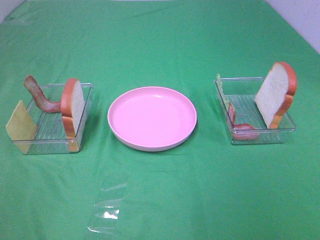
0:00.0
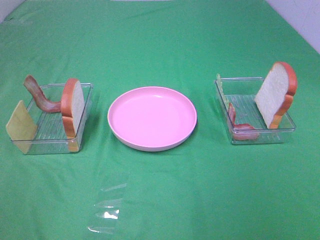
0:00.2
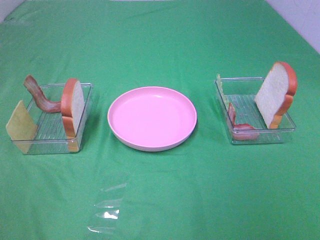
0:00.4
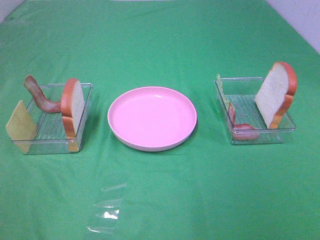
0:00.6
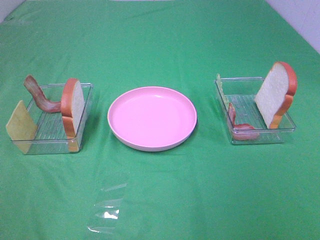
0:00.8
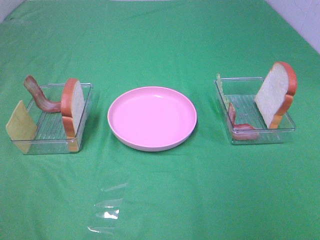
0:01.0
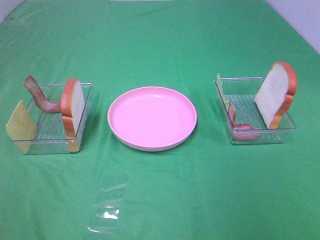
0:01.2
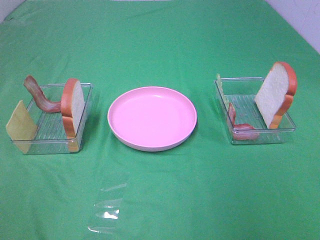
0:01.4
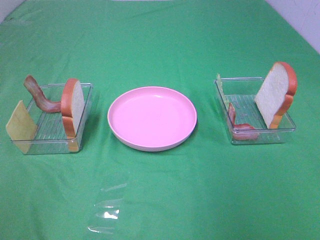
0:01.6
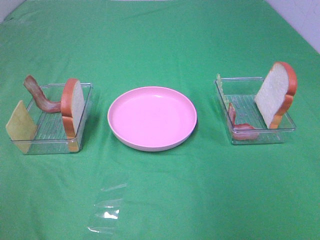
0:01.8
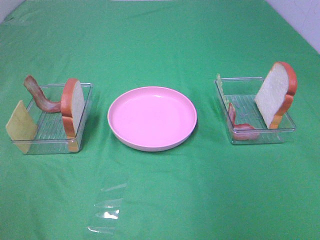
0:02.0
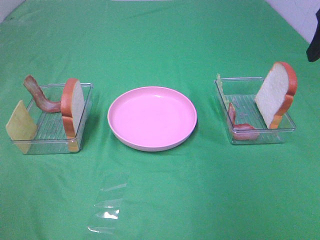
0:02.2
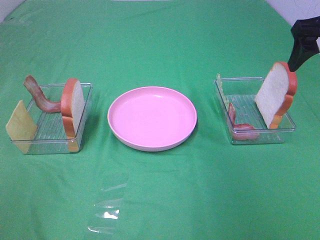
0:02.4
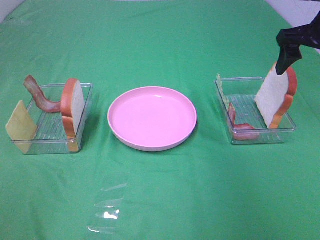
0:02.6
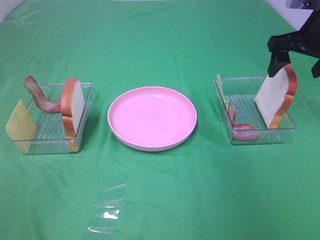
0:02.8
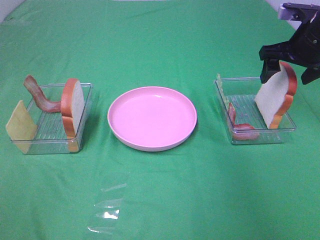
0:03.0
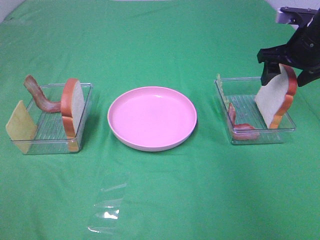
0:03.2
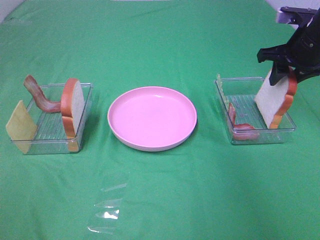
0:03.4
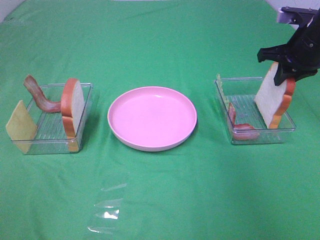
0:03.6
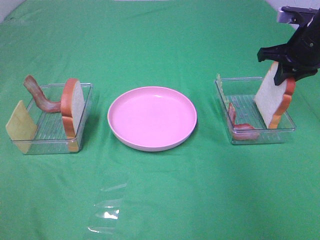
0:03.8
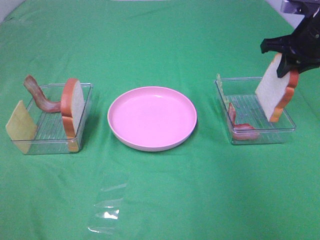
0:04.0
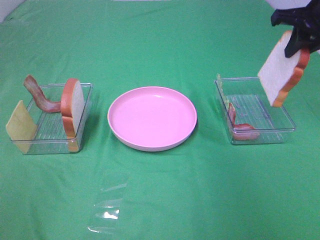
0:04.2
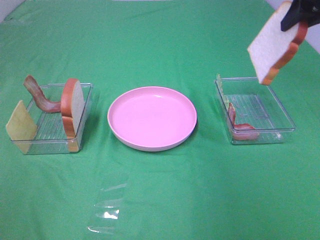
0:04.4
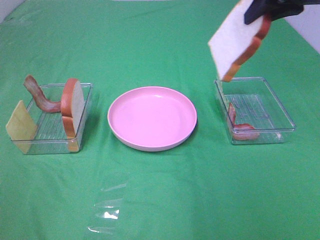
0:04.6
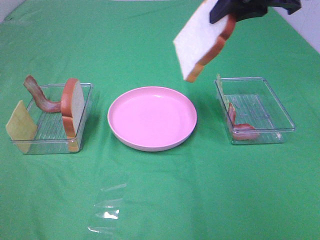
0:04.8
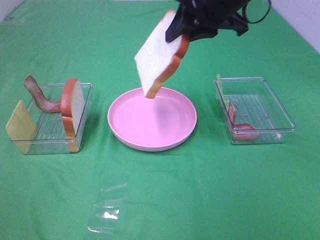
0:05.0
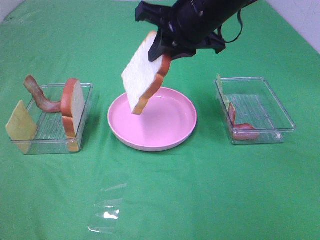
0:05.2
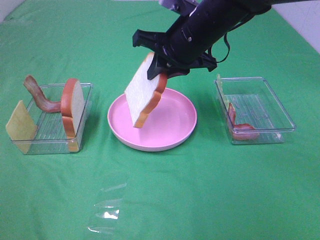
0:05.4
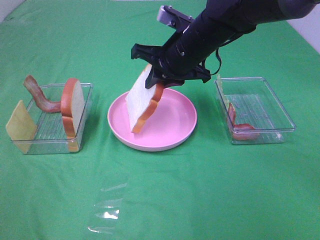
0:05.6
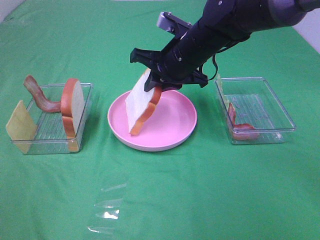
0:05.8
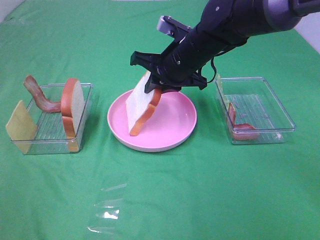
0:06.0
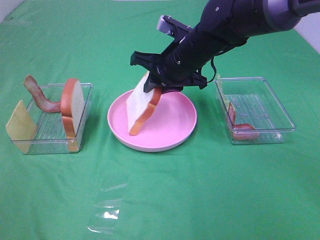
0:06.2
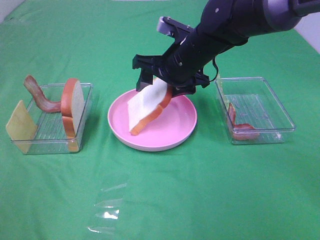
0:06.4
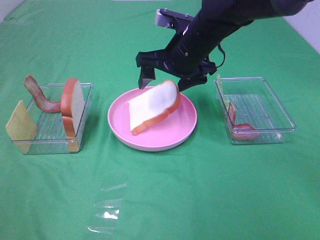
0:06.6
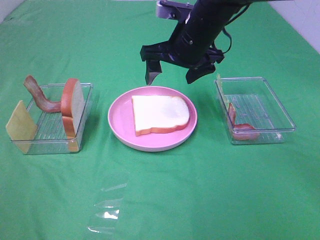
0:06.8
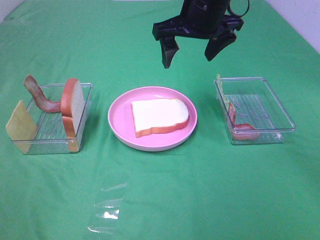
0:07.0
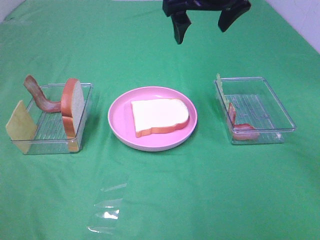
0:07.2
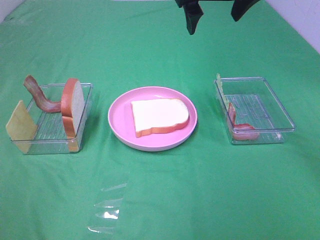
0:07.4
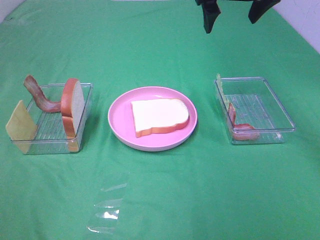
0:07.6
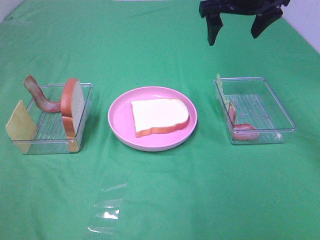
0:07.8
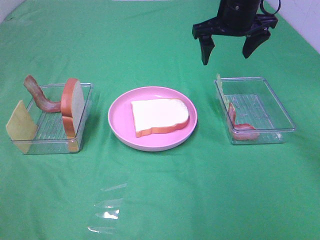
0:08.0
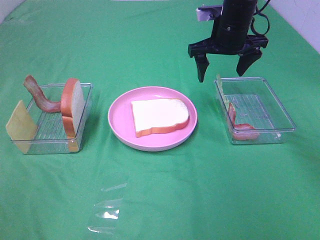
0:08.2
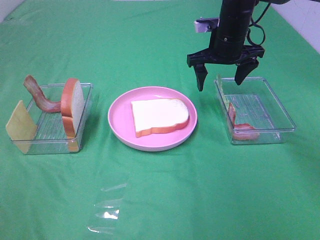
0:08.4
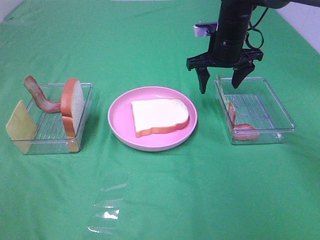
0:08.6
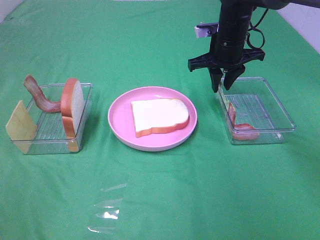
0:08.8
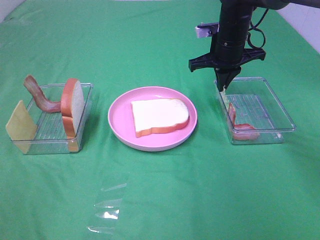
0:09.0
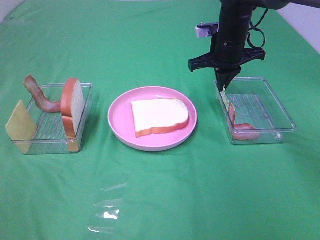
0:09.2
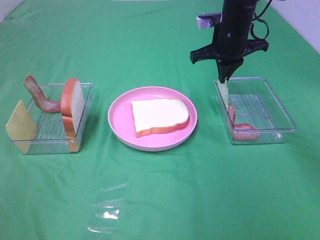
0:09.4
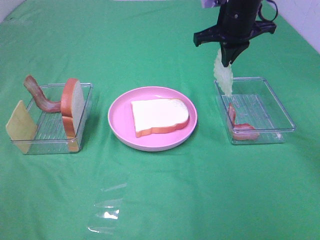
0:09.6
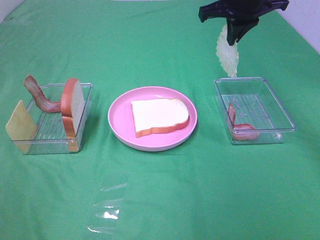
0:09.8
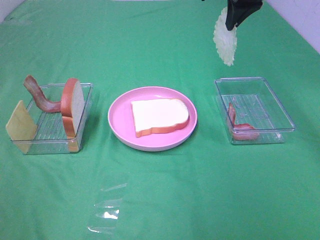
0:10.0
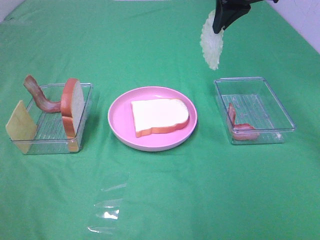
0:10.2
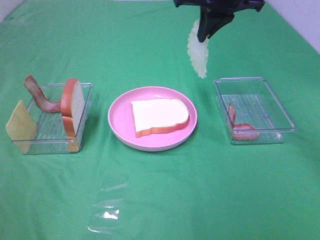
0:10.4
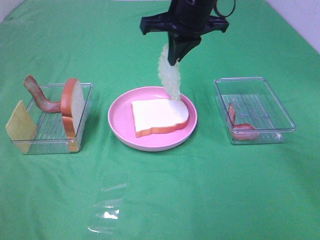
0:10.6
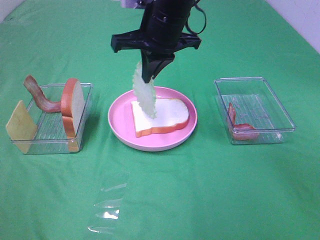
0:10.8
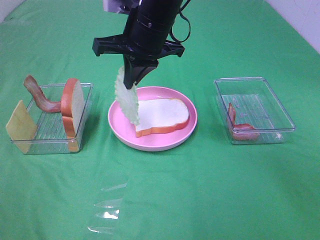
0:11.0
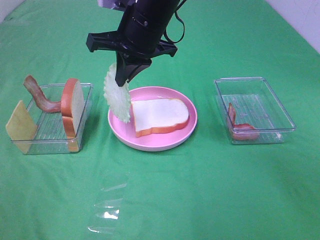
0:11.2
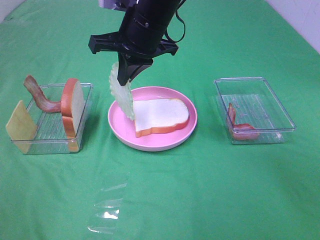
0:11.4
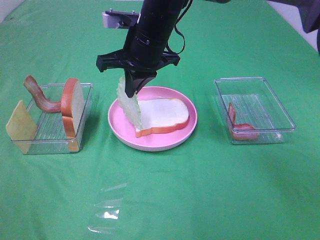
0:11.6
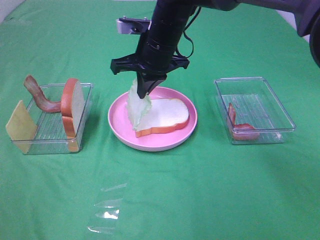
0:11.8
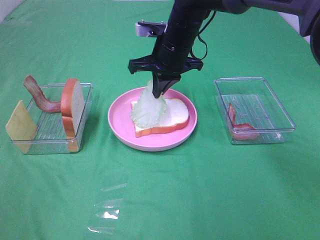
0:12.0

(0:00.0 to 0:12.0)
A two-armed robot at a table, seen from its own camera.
Task of the whole recording: Make sandwiches.
Step, 0:00.0 - 0:03.6: Right hand:grab the bread slice.
Step, 0:03.8 - 0:06.6: Right hand:place the bread slice on the plate.
Step, 0:06.8 - 0:09.0: Right hand:grab the lettuce slice.
0:01.6 - 0:03.0: The right gripper is displaced forward and downward by some 30 cm.
0:03.0 - 0:04.4: The right gripper heads upward, covering roughly 10 cm, and closes its fingers.
0:04.4 - 0:06.0: The right gripper moves to the left and downward, approximately 25 cm.
0:06.0 - 0:07.6: The right gripper travels upward and to the right by roughly 15 cm, and opens.
0:07.6 - 0:09.0: The right gripper travels downward by roughly 15 cm, and closes its fingers.
0:09.0 - 0:10.4: The right gripper travels upward by some 15 cm.
0:10.4 - 0:12.0: The right gripper is displaced downward and to the left by roughly 15 cm.

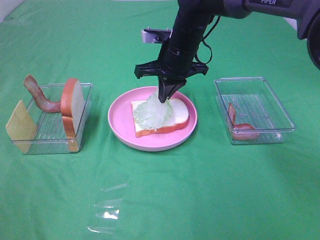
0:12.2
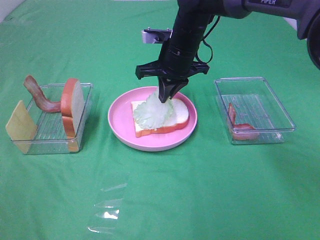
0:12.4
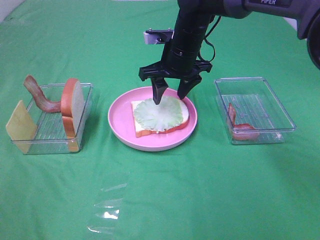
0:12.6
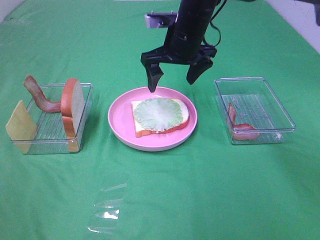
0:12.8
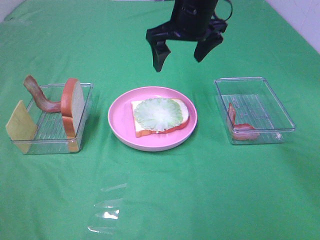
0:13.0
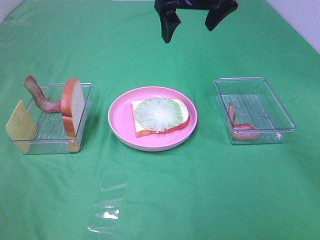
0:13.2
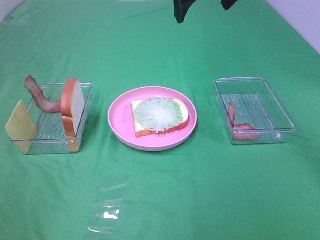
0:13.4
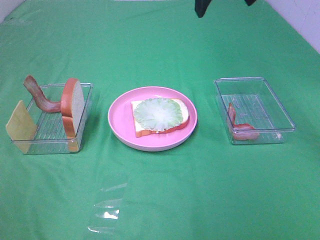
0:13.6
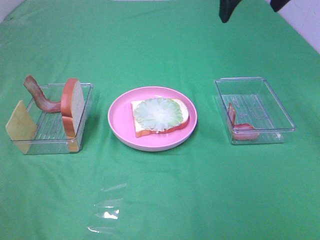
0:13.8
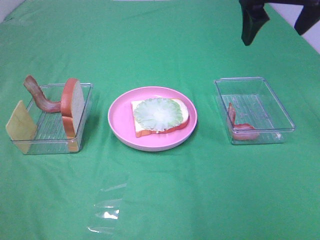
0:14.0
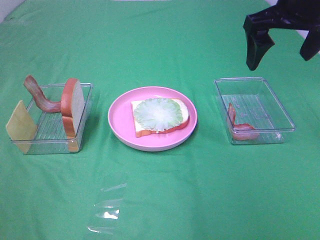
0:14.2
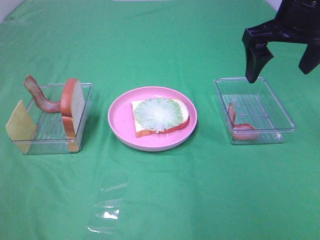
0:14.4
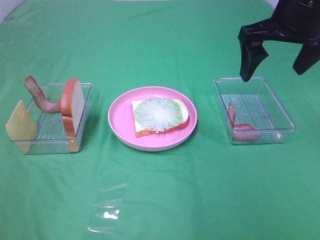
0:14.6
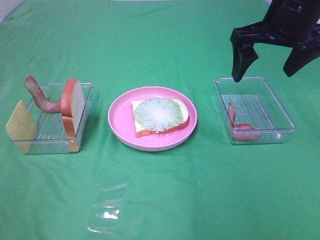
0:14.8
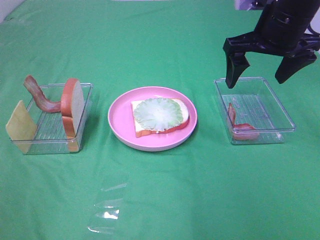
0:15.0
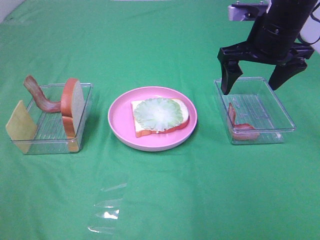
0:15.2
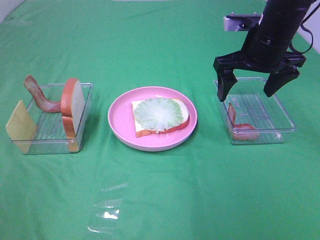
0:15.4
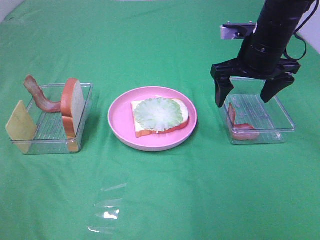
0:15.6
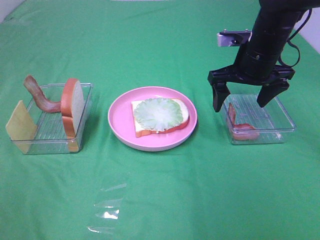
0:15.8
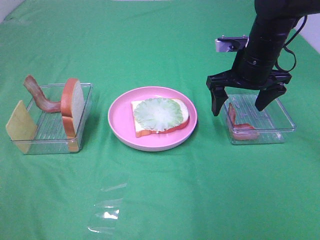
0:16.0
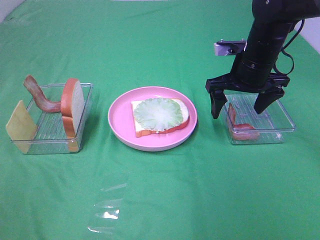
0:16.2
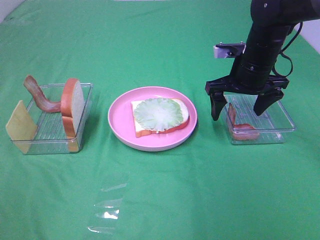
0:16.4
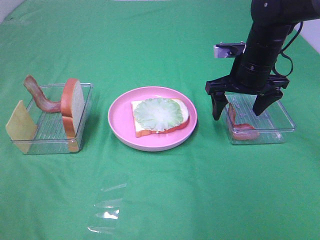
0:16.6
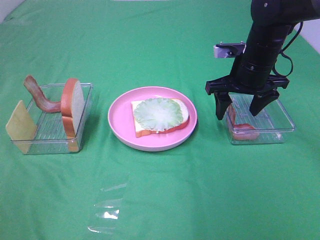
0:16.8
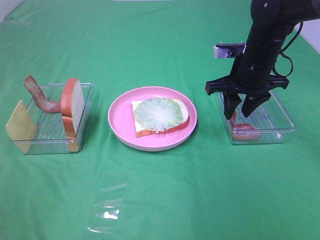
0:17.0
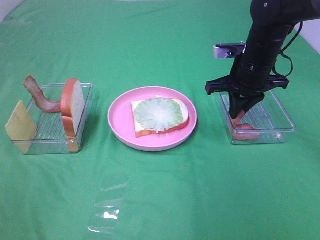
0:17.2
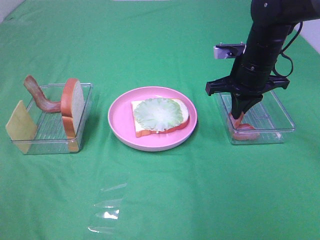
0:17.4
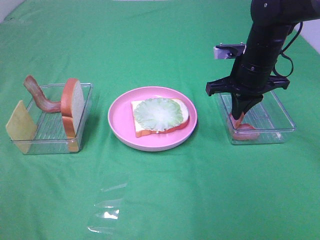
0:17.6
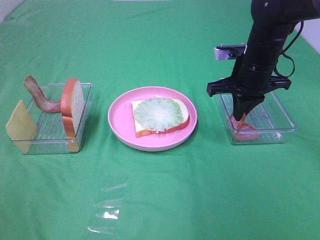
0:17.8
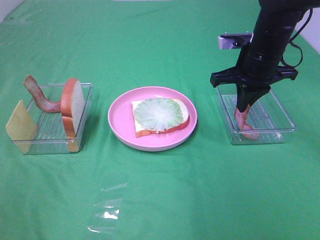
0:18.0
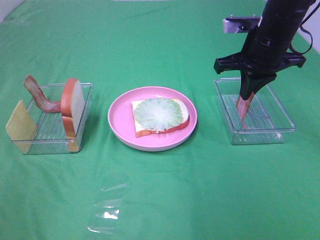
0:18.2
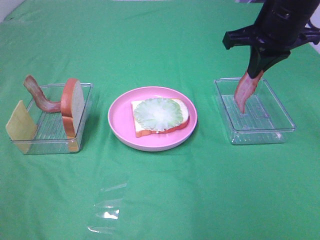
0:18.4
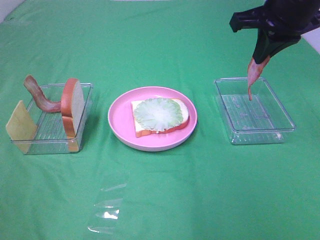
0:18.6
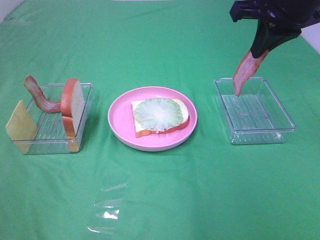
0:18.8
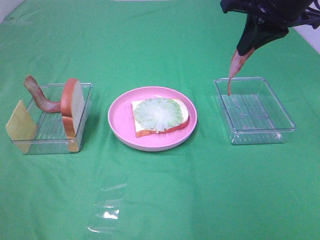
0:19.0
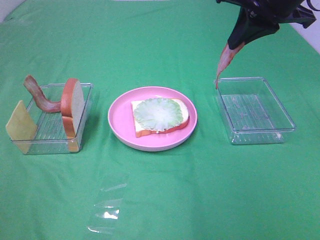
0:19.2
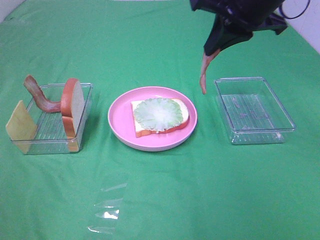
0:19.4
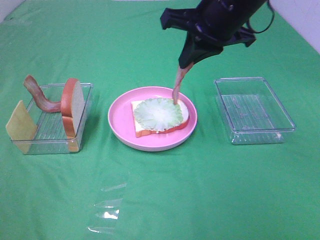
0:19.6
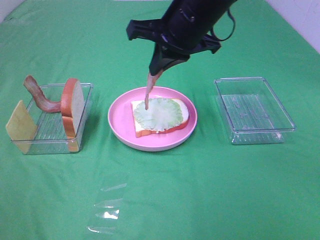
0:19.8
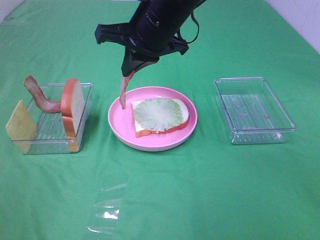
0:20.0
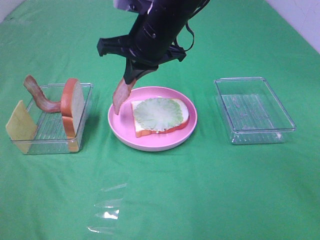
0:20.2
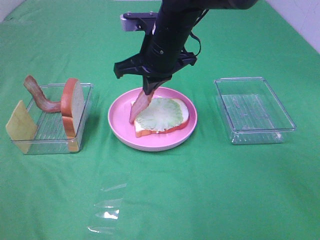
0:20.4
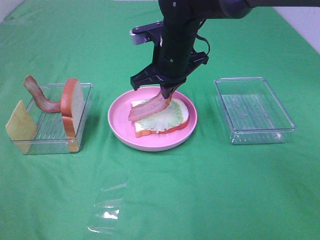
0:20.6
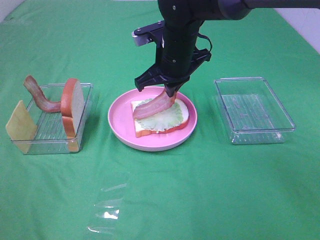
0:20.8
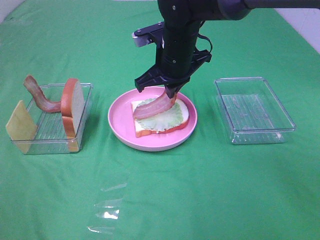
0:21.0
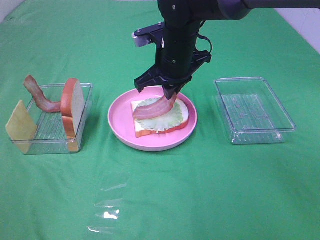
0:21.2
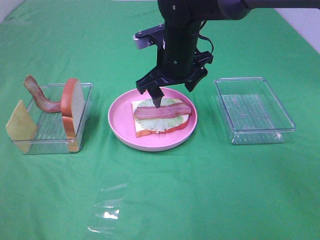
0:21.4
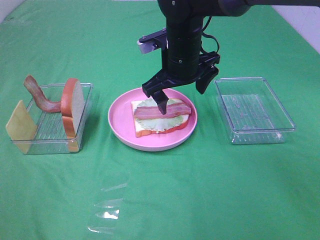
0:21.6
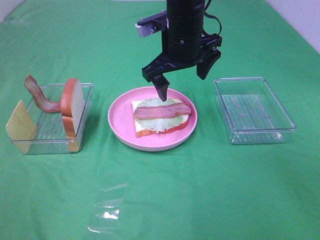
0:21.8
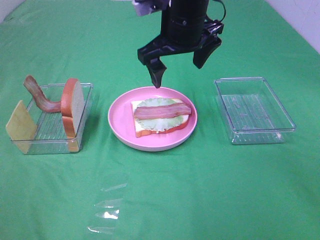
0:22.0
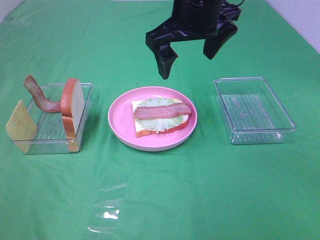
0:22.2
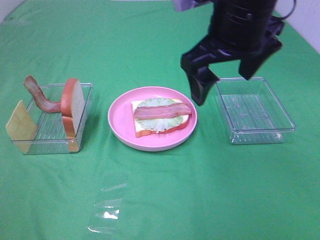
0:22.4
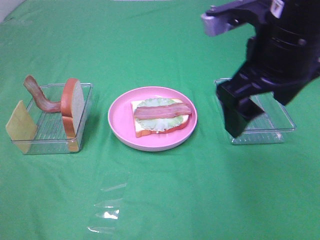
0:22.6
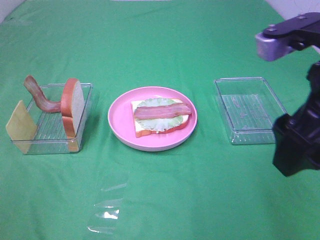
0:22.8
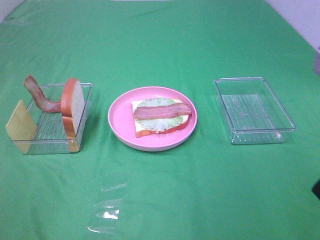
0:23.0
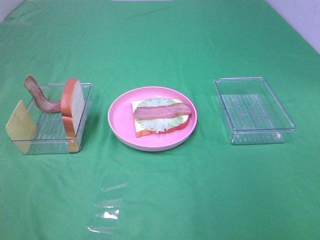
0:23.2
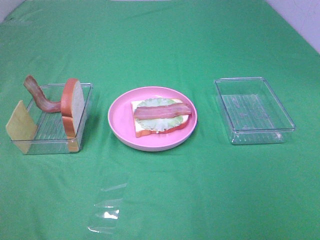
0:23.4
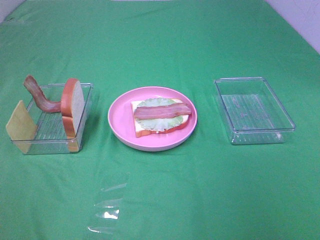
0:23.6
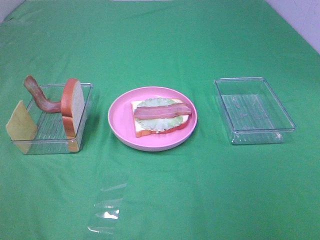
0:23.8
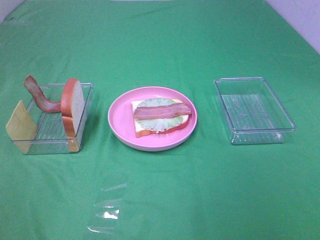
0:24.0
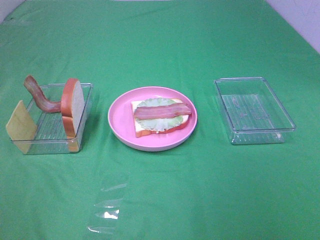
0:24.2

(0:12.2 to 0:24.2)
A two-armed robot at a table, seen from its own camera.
Task of the whole recording: Make sandwiches.
Step, 0:12.8 - 0:17.4: Right hand:grab the bacon.
Step, 0:17.6 - 0:21.2: Right hand:place bacon on lettuce slice.
0:12.2 - 0:13.8: The right gripper shifts some 20 cm upward and to the right, and opens.
0:13.8 - 0:15.2: The right gripper travels downward by approximately 10 cm.
0:15.2 - 0:16.6: The right gripper heads downward, covering about 10 cm.
0:16.6 - 0:18.2: The right gripper moves upward, roughly 5 cm, and closes its fingers.
0:18.2 - 0:19.8: The right gripper is displaced to the left by roughly 15 cm.
0:19.8 - 0:21.2: The right gripper travels downward by about 10 cm.
0:21.2 - 0:22.6: The right gripper travels backward, upward and to the right by about 25 cm, and opens.
0:22.6 - 0:24.2: The right gripper moves backward and to the right, some 25 cm.
